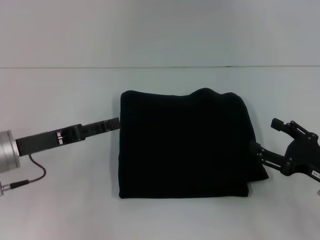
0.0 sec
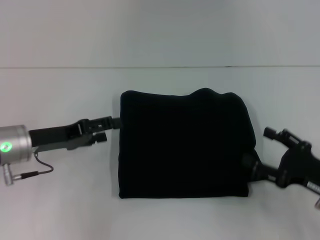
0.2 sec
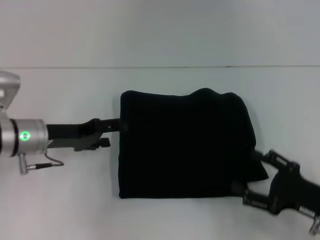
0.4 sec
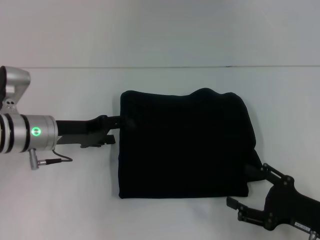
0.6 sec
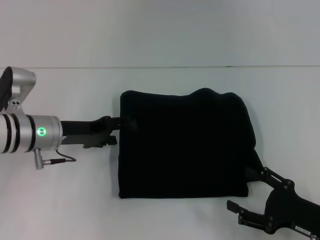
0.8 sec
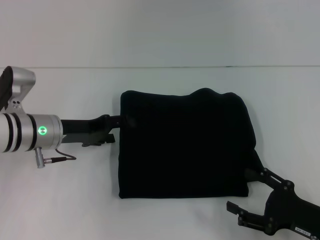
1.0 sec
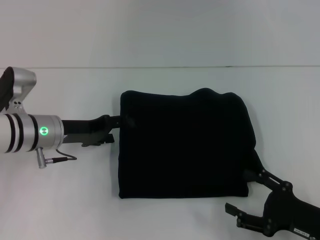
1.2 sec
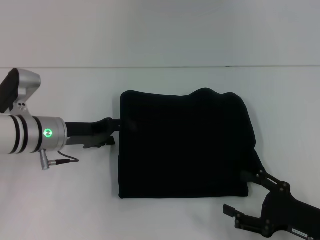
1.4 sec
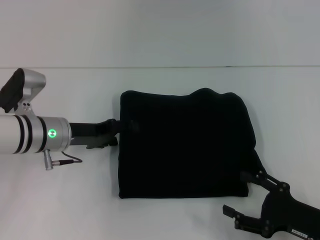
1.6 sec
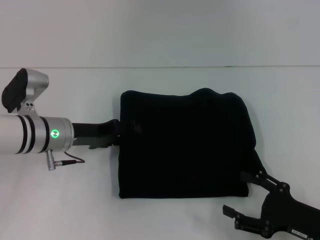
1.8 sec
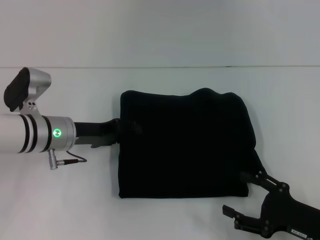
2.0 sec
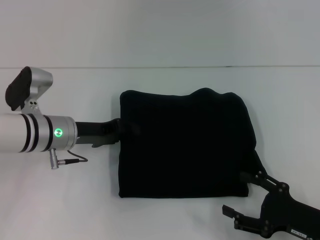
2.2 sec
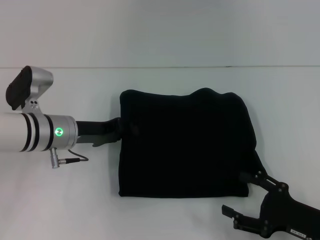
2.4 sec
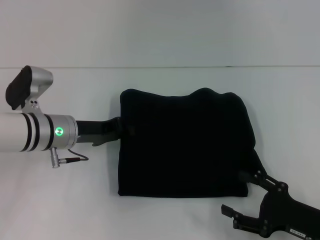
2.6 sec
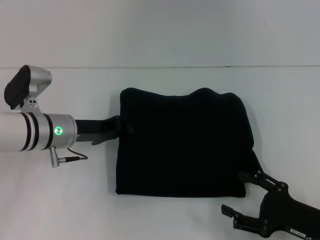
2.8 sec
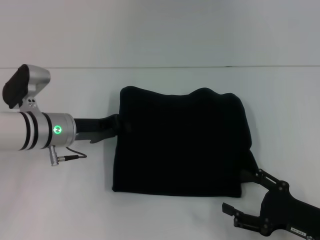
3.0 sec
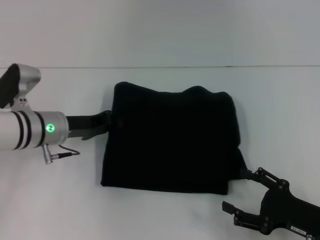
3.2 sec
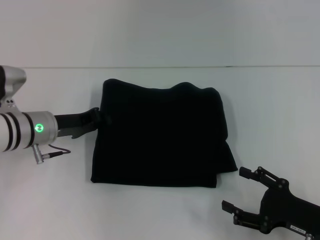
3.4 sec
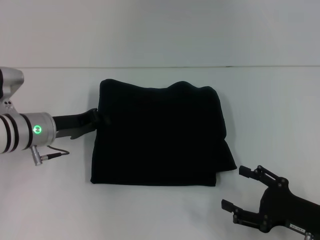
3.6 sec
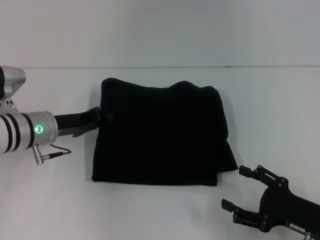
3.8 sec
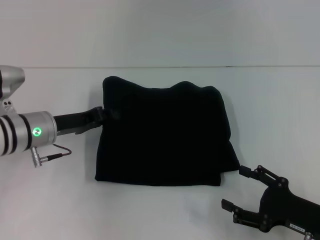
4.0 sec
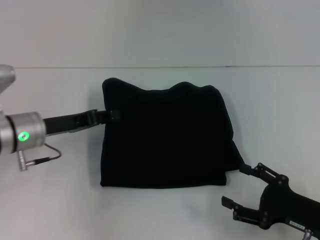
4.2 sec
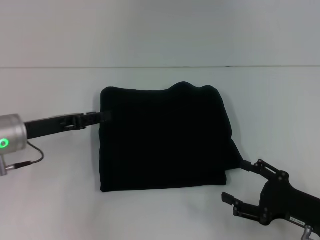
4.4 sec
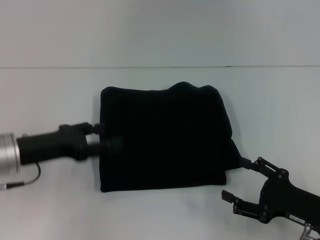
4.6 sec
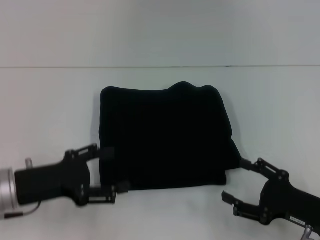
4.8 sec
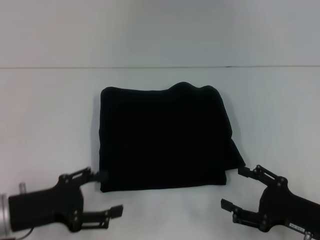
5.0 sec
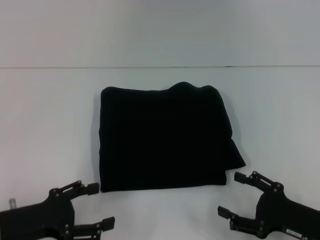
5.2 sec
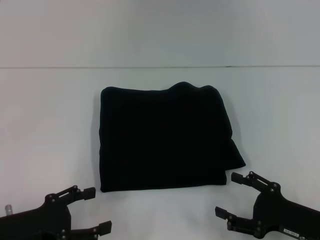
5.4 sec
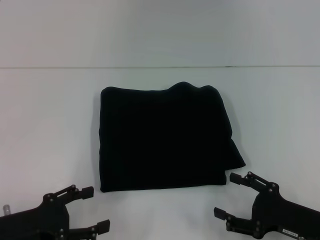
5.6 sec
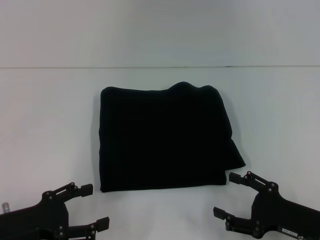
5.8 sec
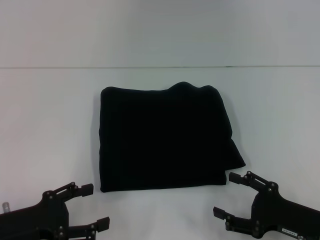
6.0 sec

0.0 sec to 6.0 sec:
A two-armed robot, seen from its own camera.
0.0 sec to 1.6 sec: The right gripper heads backward, covering some 5 cm. Meanwhile the left gripper moves forward and to the right, about 10 cm.
1.6 sec to 3.0 sec: The left gripper closes its fingers.
3.0 sec to 4.4 sec: The left gripper travels to the left by about 5 cm, and opens.
4.4 sec to 6.0 sec: The left gripper goes approximately 15 cm backward, and opens.

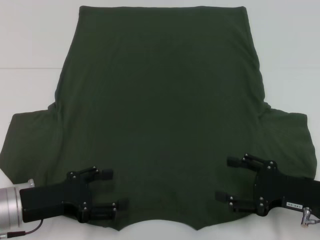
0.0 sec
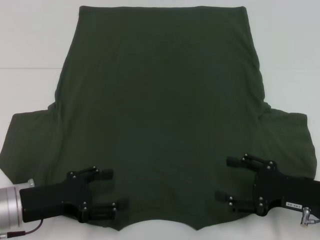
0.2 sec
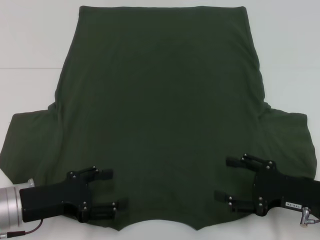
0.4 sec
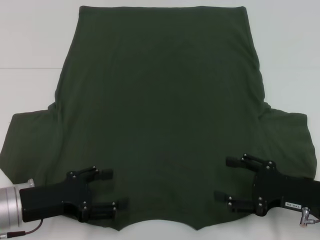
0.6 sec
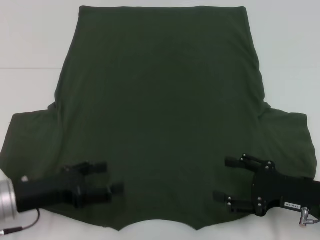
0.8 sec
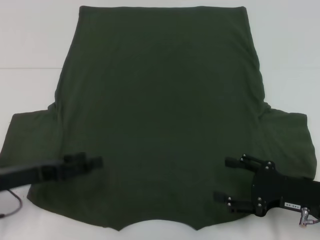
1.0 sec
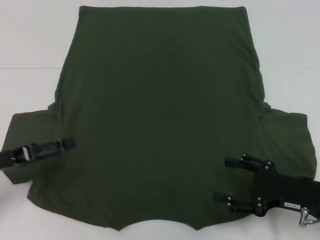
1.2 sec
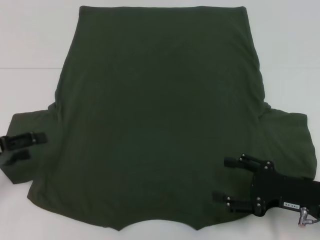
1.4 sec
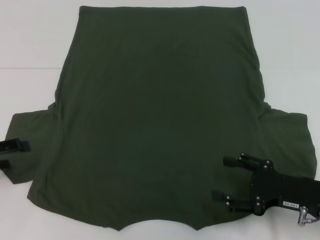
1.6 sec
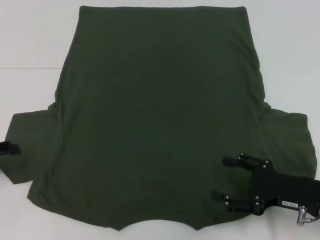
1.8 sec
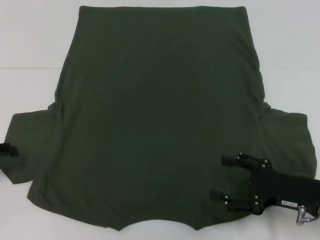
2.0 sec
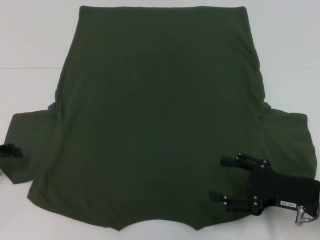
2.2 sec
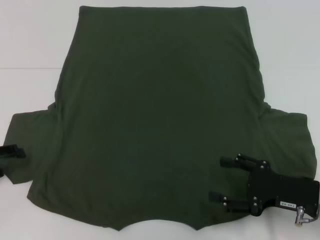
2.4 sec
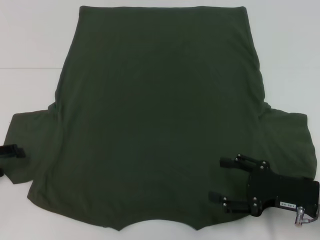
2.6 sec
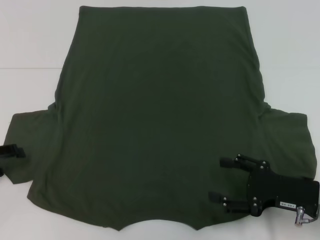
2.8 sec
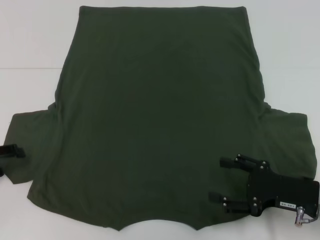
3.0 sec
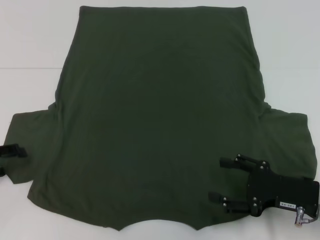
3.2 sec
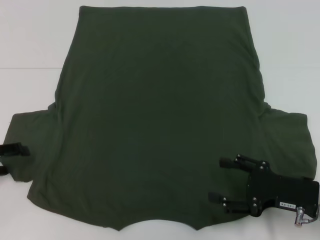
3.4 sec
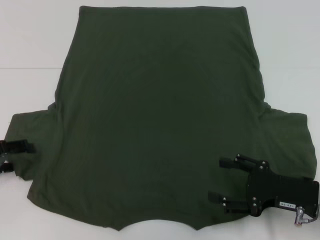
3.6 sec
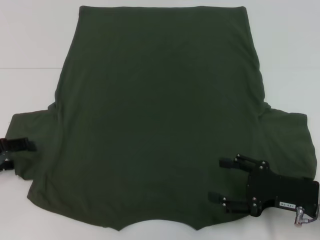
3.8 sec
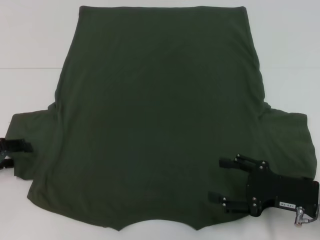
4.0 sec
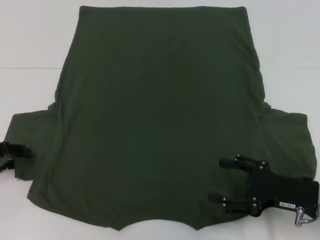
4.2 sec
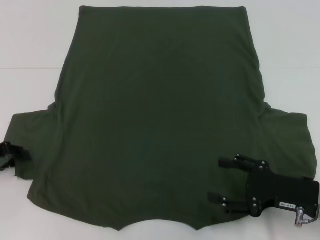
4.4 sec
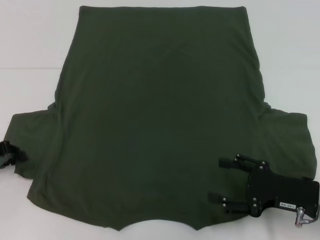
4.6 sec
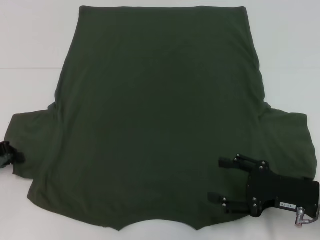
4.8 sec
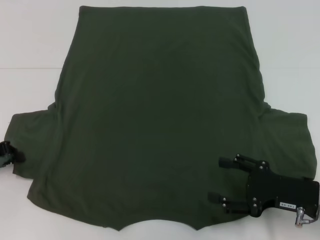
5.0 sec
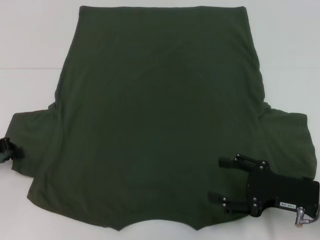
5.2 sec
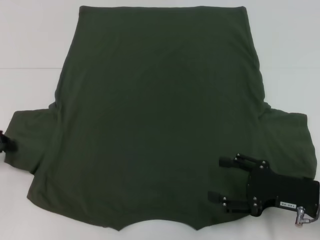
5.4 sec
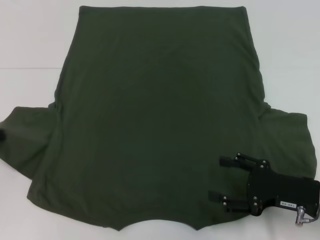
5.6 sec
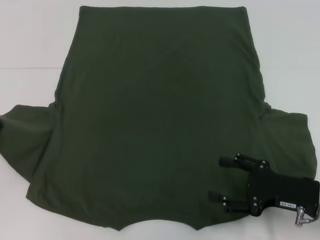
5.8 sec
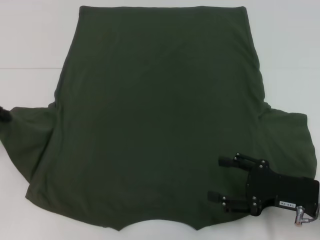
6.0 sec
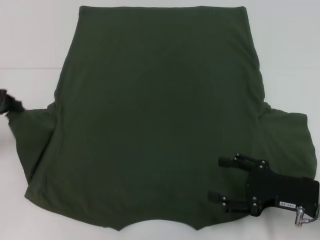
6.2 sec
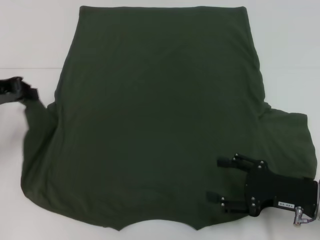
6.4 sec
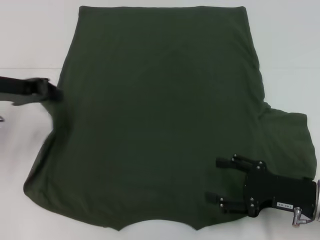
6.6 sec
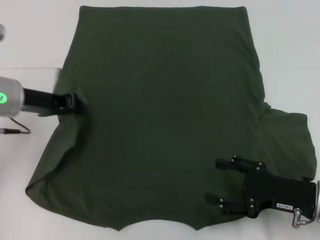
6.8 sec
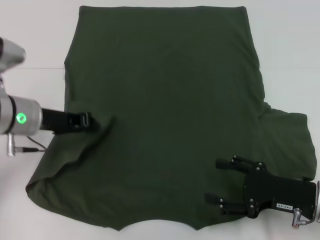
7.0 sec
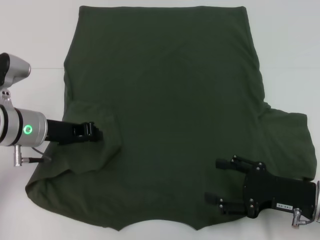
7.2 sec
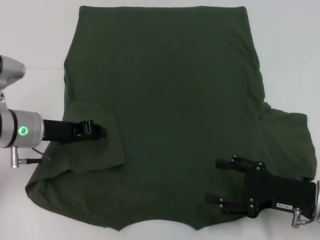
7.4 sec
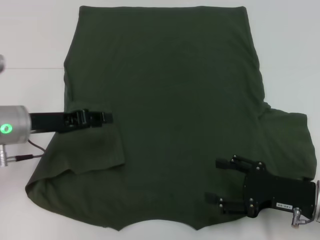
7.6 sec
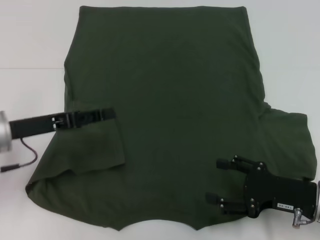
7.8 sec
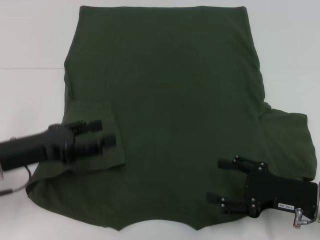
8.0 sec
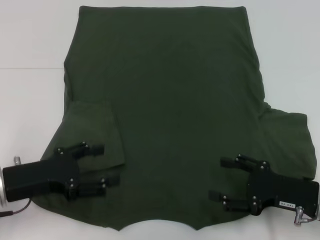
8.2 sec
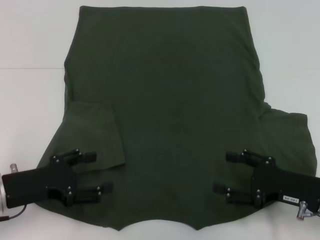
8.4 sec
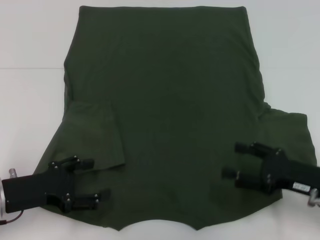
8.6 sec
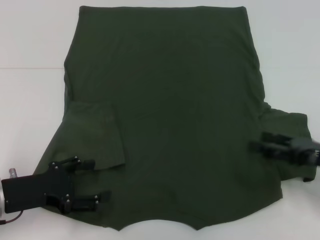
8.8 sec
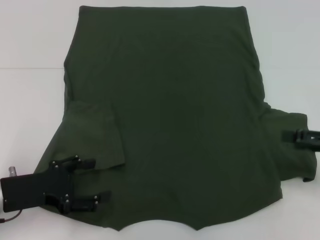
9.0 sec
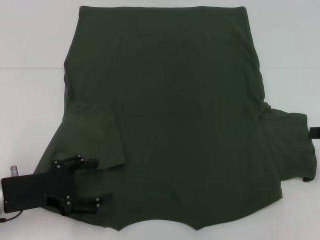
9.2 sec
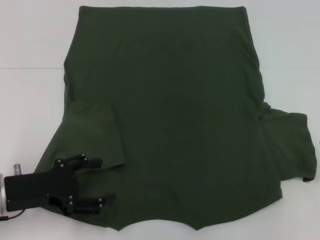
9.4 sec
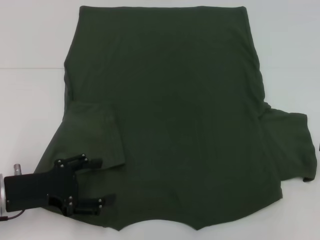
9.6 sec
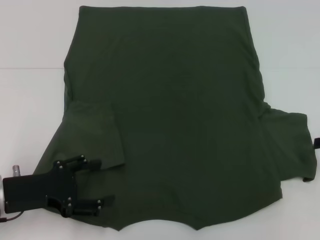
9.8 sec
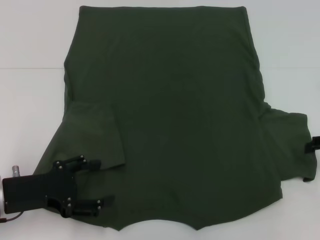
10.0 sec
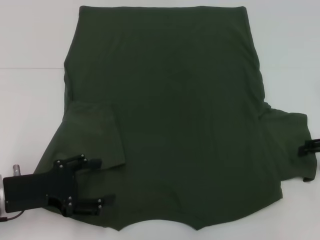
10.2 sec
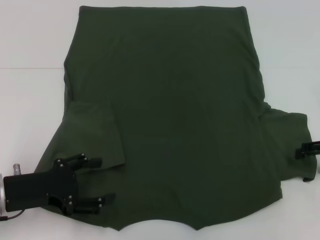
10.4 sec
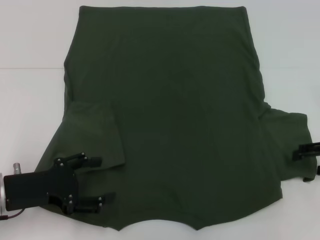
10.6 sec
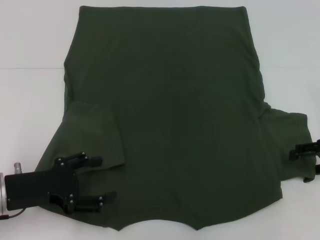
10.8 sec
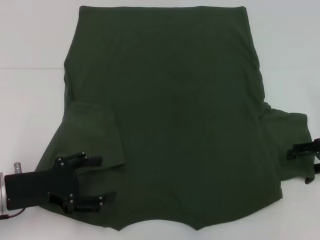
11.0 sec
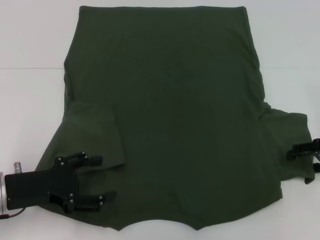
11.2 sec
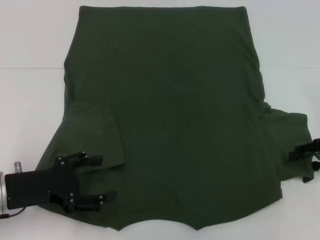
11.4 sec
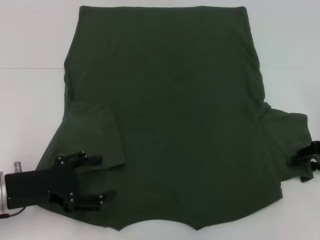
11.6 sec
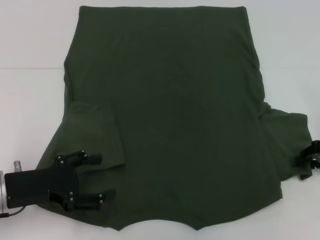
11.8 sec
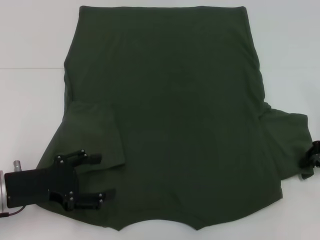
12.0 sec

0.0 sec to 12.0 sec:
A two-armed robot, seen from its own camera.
Step, 0.0 sec to 7.2 sec: Fold the bottom left sleeve with your left hand.
0.0 sec to 1.6 sec: The left gripper heads to the left, covering about 10 cm.
1.6 sec to 3.0 sec: The grippers move only a little.
4.4 sec to 6.0 sec: The left gripper goes roughly 5 cm upward, and closes its fingers.
6.0 sec to 7.6 sec: The left gripper is displaced to the right by some 10 cm.
7.6 sec to 9.0 sec: The left gripper is displaced backward by some 10 cm, and opens. The right gripper moves to the right and upward, about 10 cm.

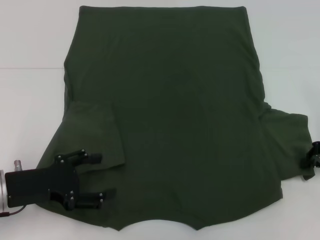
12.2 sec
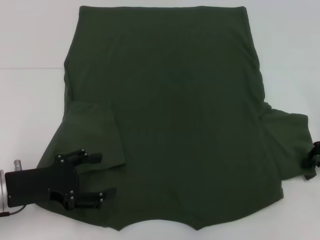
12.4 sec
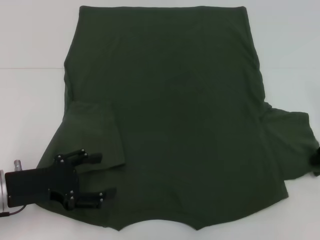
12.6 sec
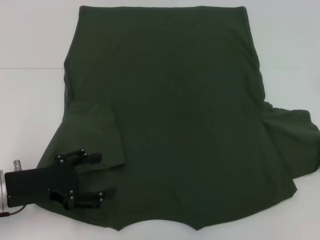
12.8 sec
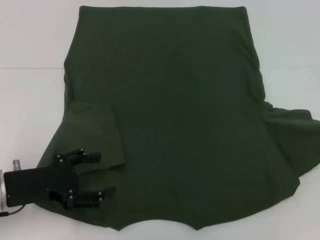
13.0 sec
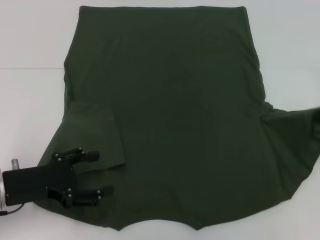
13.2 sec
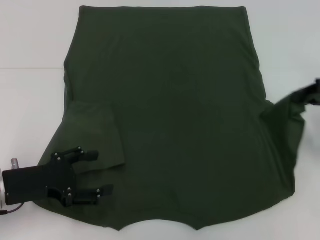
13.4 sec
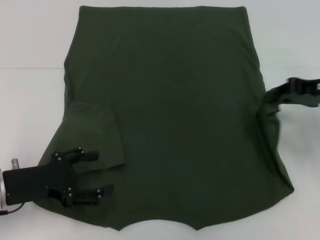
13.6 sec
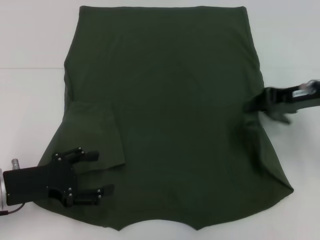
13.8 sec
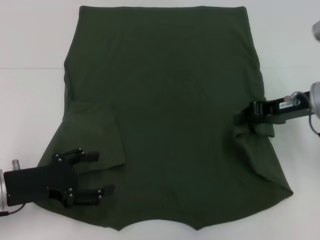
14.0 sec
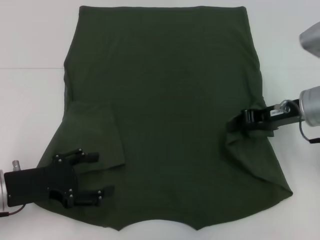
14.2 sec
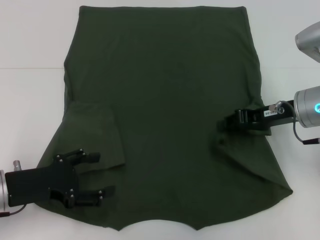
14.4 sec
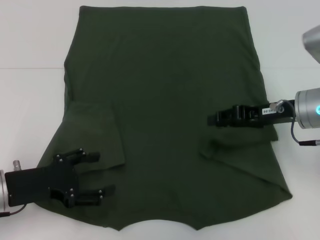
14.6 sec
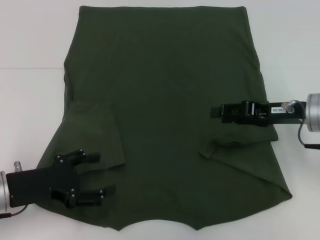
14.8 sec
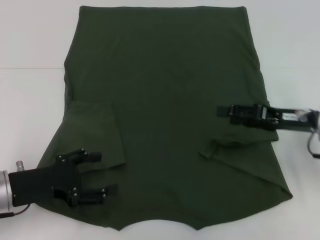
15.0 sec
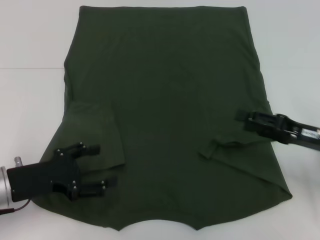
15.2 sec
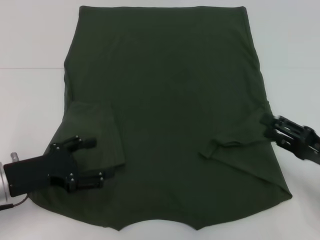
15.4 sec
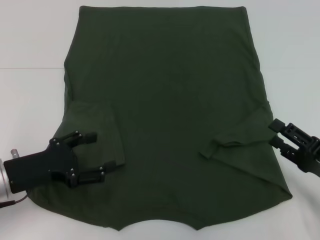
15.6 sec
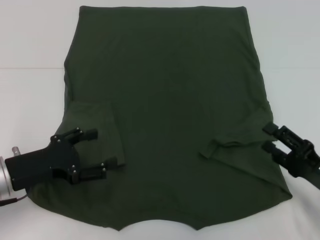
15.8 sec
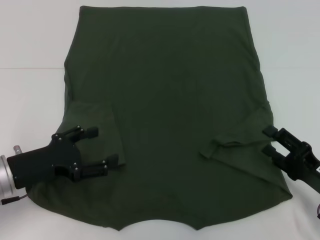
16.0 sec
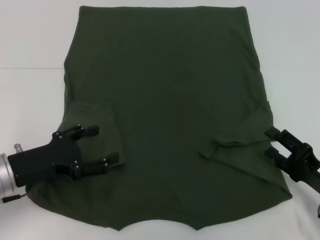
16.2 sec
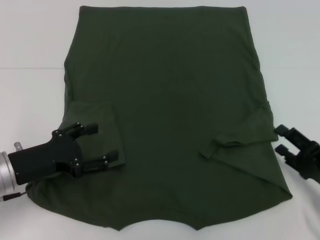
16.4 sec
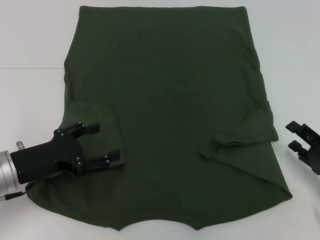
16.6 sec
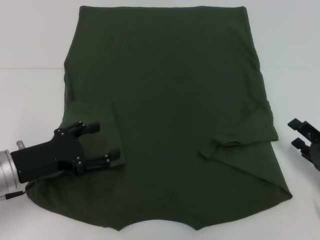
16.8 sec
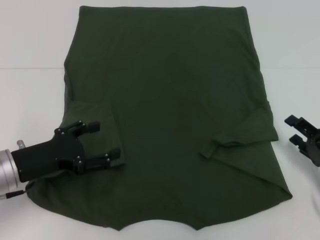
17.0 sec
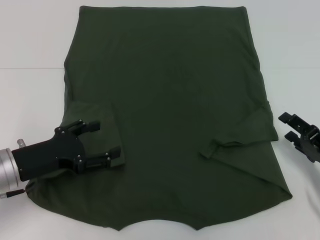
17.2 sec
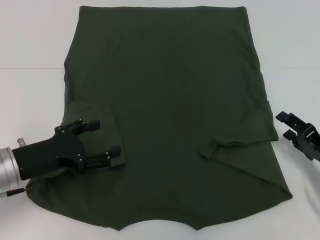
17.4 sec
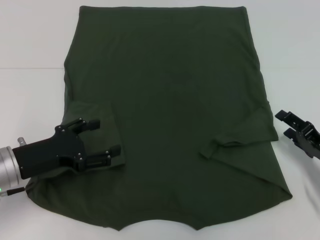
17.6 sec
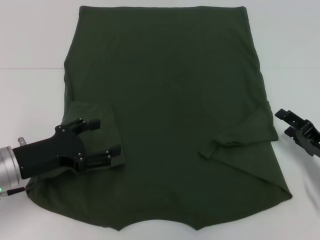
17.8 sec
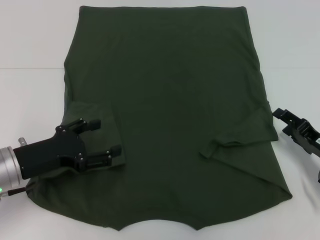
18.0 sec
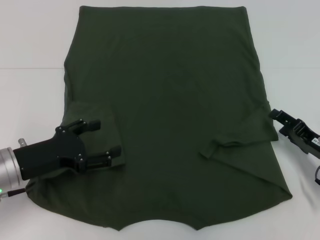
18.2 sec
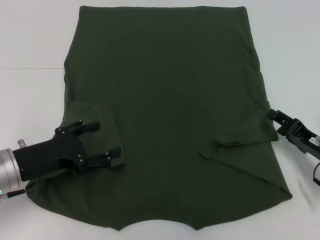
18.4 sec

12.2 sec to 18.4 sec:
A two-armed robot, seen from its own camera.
12.2 sec to 13.8 sec: The right gripper shifts about 10 cm to the left and upward.
13.8 sec to 15.4 sec: The right gripper is displaced downward and backward by roughly 15 cm, and opens up.
16.8 sec to 18.4 sec: The right gripper moves forward, approximately 5 cm.
